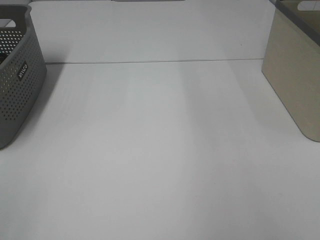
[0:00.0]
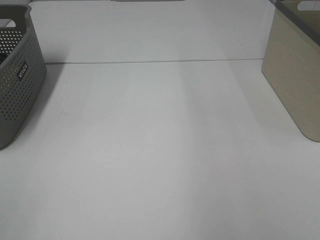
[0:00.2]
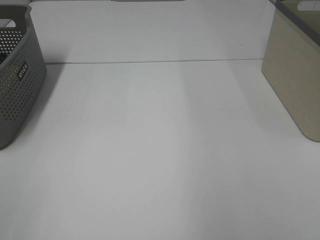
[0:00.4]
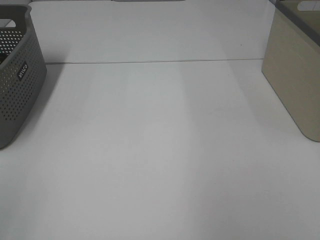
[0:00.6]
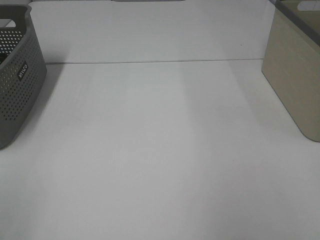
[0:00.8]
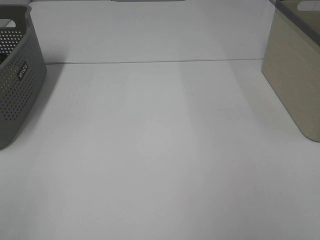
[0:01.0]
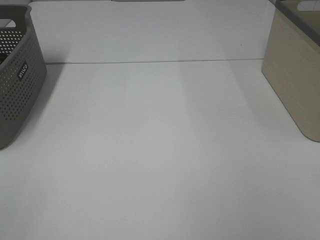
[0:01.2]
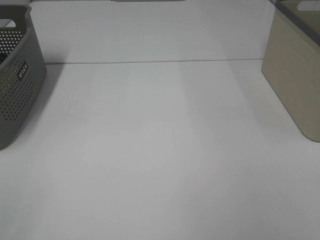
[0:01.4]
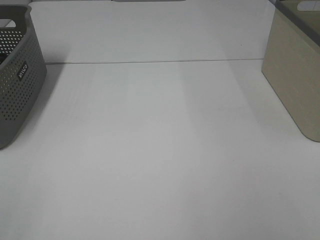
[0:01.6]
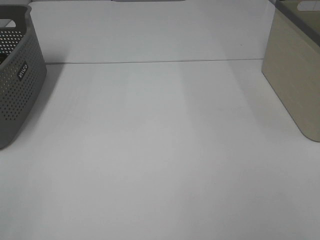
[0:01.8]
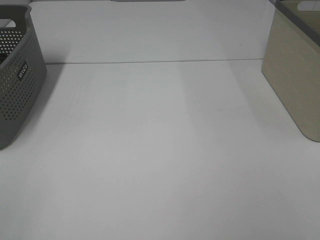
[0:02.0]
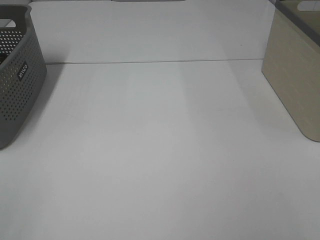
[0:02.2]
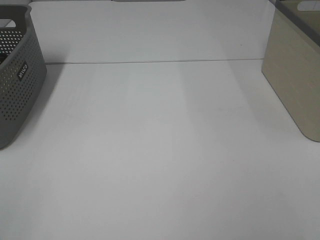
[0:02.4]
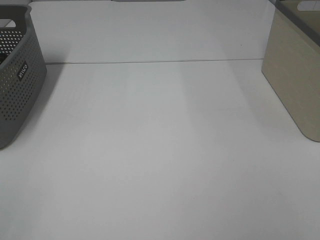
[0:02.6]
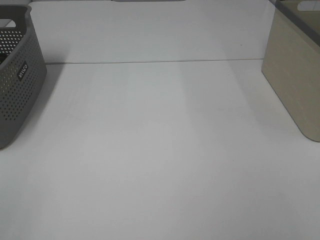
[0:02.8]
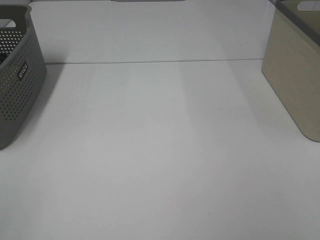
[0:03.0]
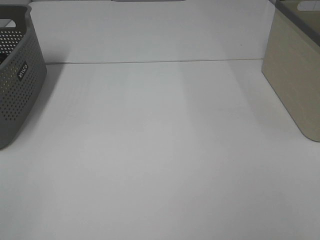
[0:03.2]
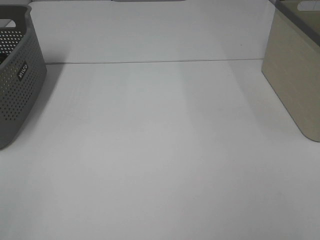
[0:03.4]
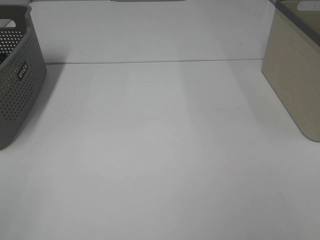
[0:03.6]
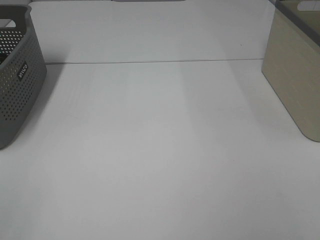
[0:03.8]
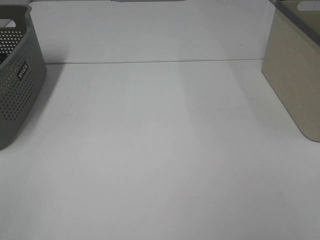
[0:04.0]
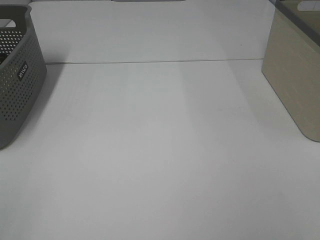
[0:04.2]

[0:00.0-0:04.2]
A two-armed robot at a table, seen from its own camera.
0:02.8 to 0:04.2: Neither gripper changes place.

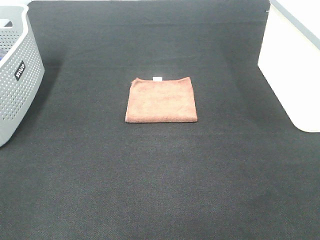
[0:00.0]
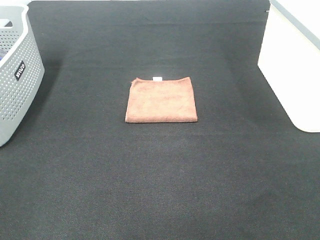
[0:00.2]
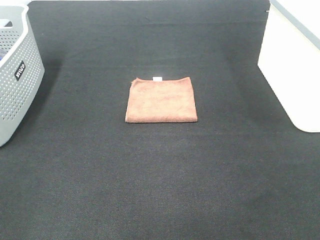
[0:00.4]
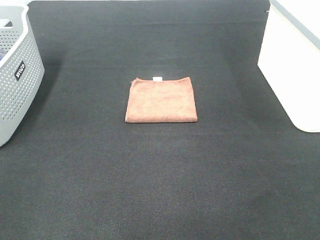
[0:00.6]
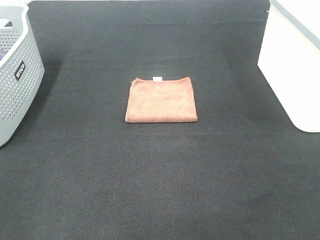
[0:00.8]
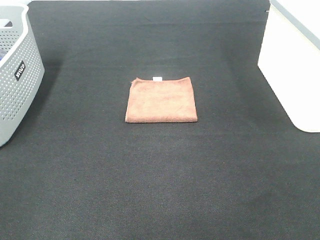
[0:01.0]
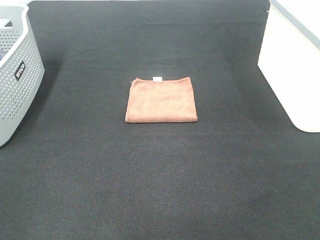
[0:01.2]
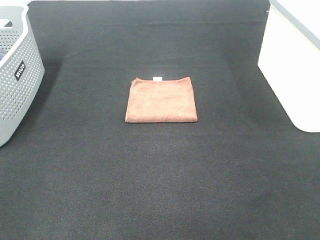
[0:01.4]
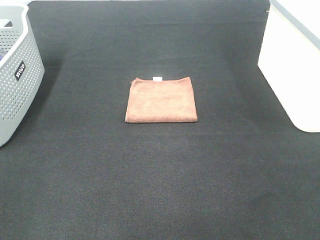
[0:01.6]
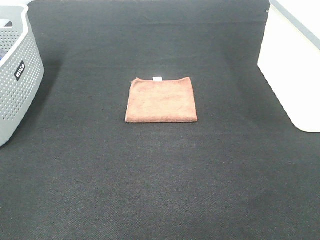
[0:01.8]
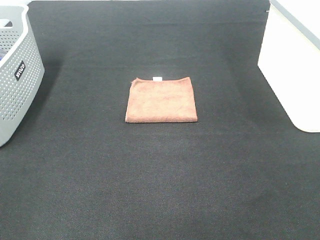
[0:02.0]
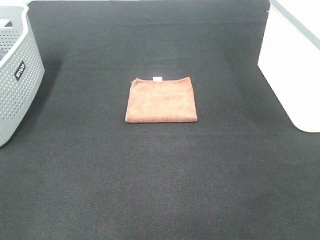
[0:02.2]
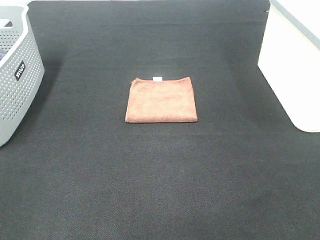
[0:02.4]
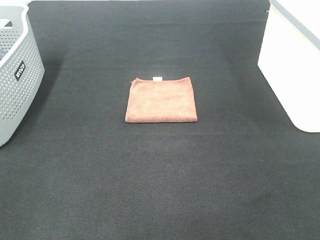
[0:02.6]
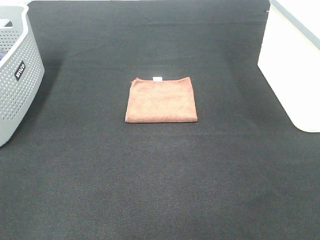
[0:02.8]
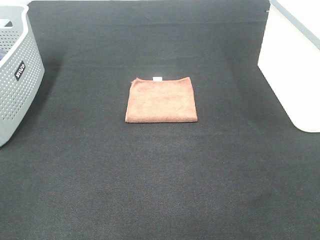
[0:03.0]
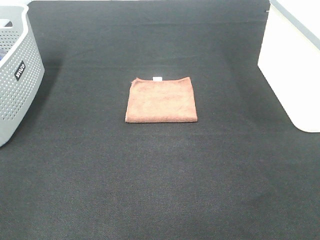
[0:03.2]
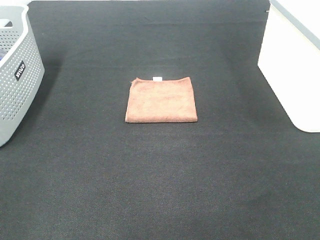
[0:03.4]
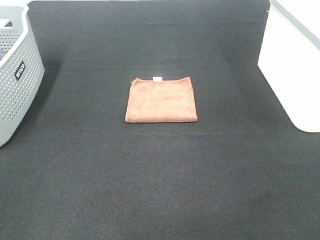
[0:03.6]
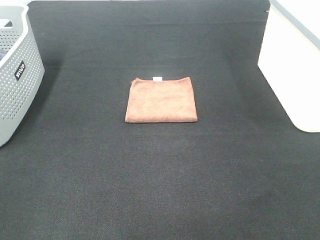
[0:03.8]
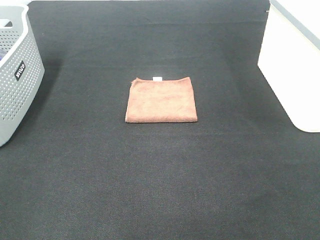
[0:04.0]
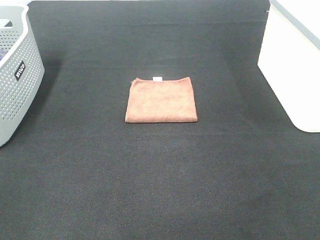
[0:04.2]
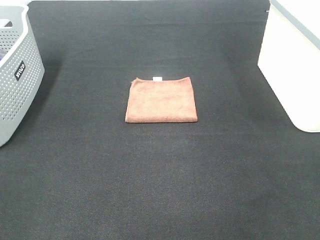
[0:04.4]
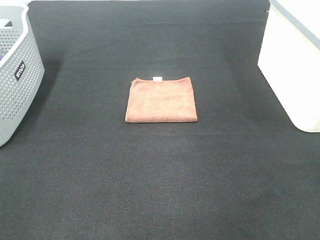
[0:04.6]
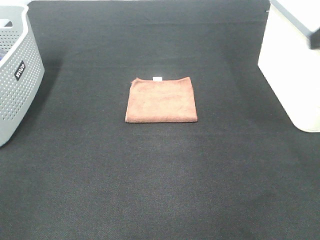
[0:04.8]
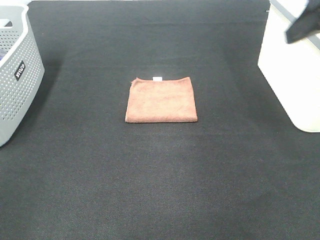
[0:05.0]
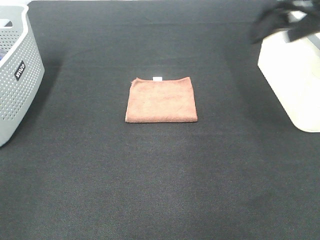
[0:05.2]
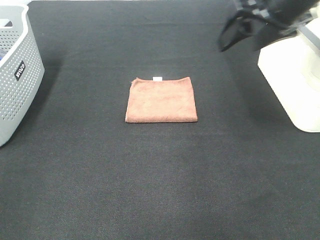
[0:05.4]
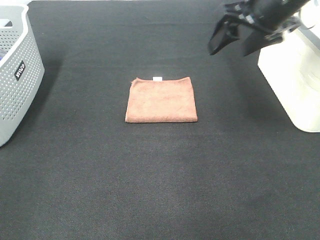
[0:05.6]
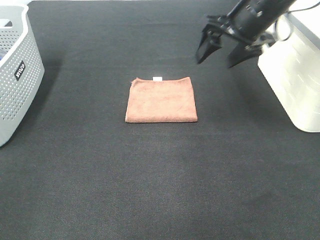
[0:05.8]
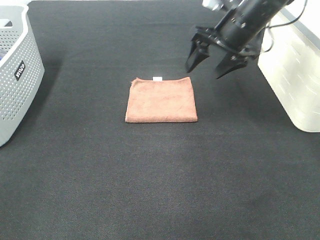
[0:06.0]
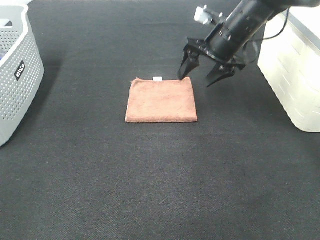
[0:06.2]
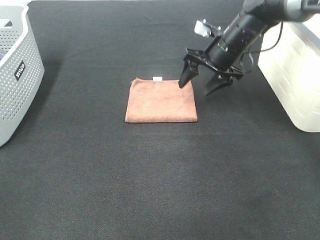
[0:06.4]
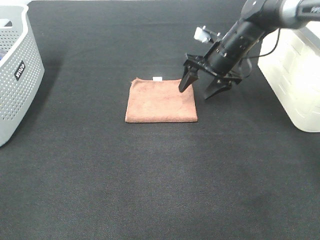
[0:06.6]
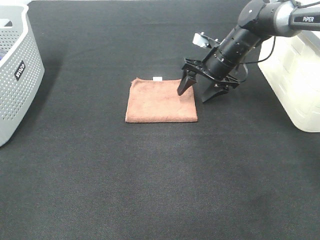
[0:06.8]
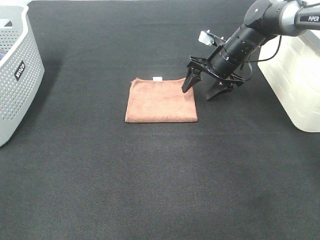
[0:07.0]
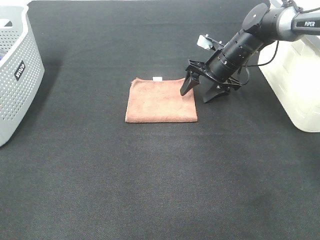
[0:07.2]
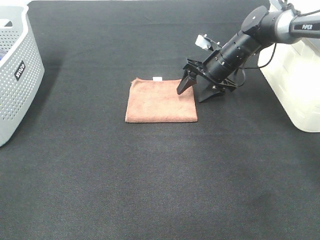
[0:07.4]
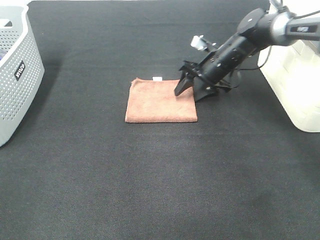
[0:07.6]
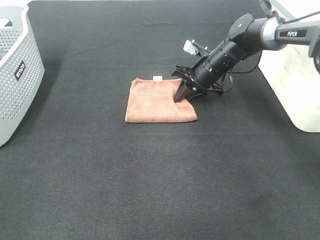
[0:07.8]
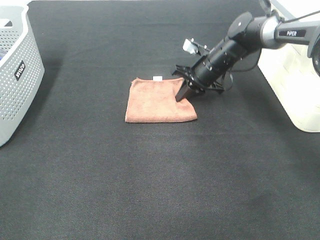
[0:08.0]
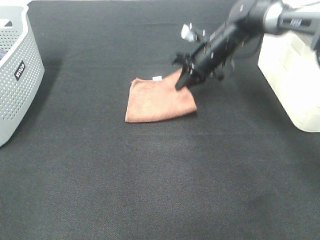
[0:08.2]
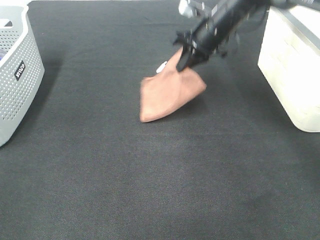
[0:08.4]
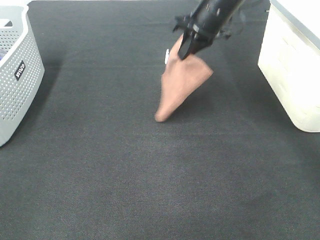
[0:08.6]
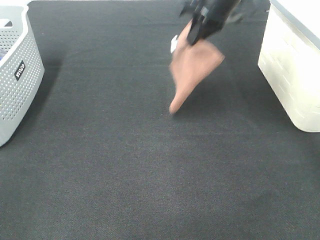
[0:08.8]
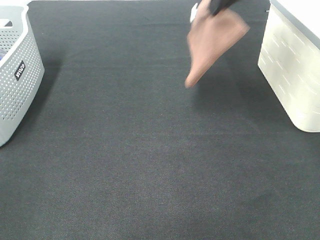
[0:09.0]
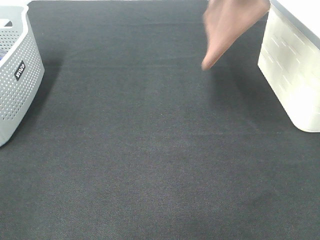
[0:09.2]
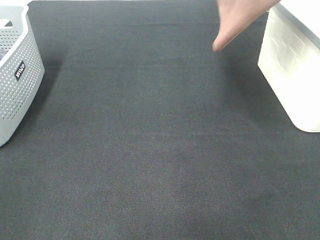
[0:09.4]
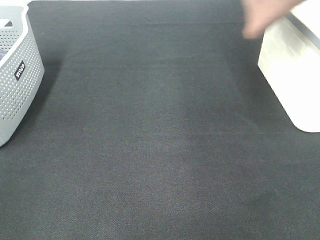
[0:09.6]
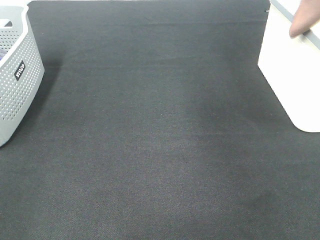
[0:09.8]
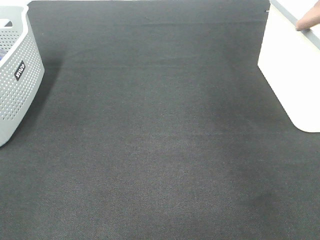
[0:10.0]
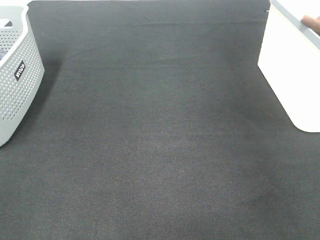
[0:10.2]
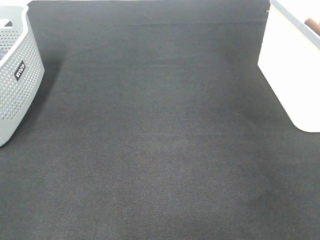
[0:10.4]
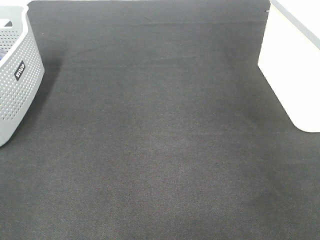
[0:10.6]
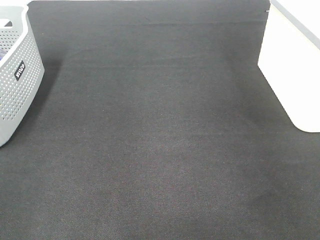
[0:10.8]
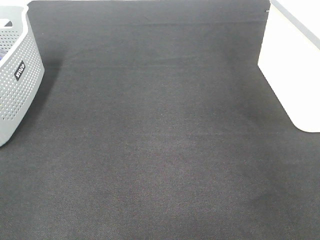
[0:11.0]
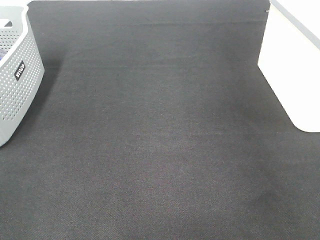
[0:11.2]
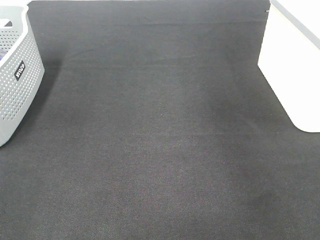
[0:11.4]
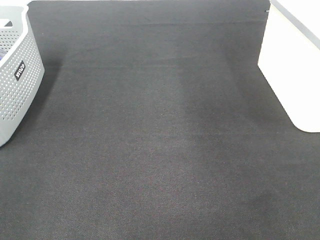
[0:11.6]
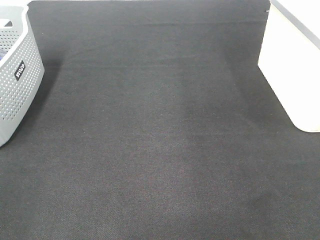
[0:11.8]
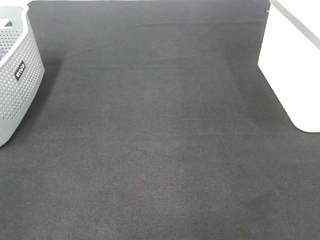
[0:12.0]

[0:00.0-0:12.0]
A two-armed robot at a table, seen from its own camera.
Step, 0:00.0 to 0:08.0: Right hand: grab the folded brown towel.
Step, 0:08.2 to 0:10.6: Right hand: place the brown towel in right basket.
0:00.0 to 0:03.0: The two grippers keep their place.
0:04.4 to 0:06.0: The right gripper moves forward, about 35 cm.
0:06.0 to 0:07.6: The right gripper goes roughly 15 cm downward and forward.
0:07.6 to 0:09.0: The right gripper moves upward, some 25 cm, and closes its fingers.
0:09.0 to 0:10.4: The right gripper goes some 25 cm to the right.

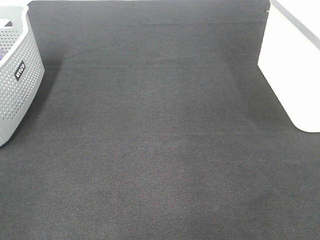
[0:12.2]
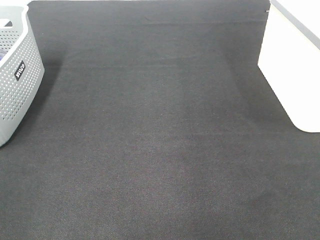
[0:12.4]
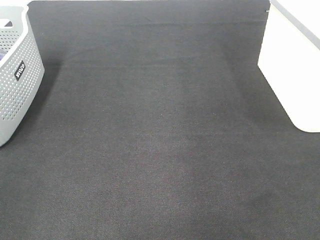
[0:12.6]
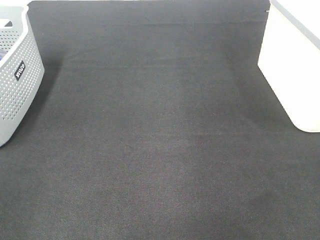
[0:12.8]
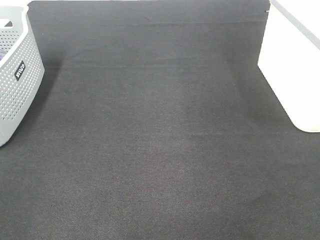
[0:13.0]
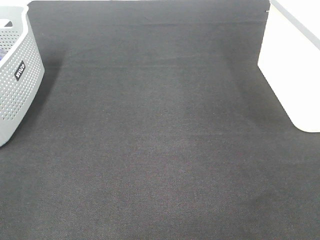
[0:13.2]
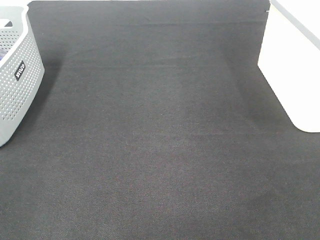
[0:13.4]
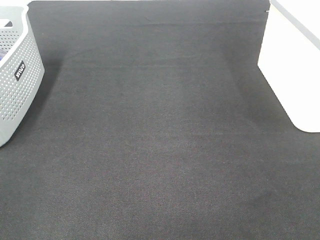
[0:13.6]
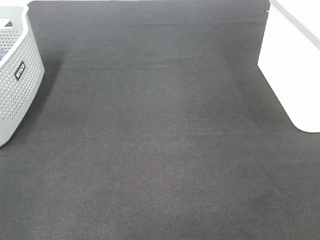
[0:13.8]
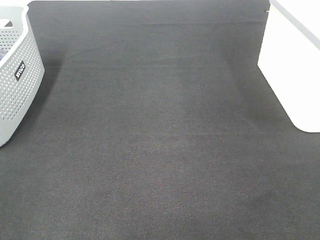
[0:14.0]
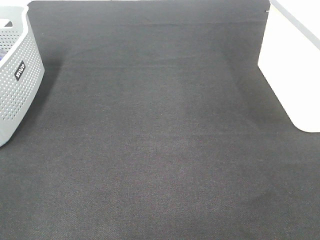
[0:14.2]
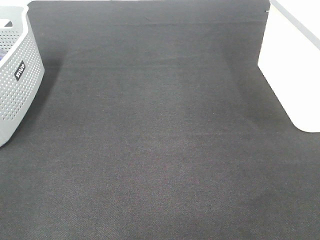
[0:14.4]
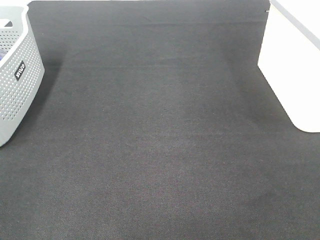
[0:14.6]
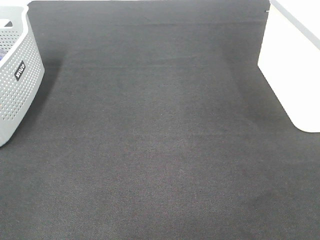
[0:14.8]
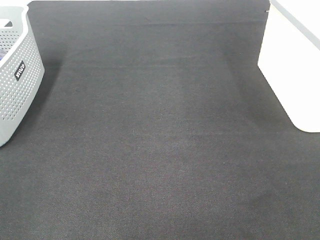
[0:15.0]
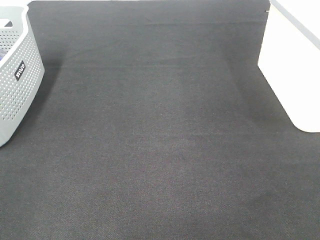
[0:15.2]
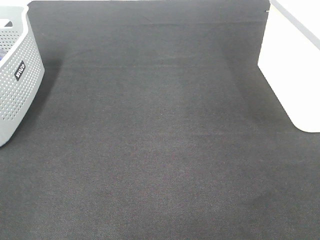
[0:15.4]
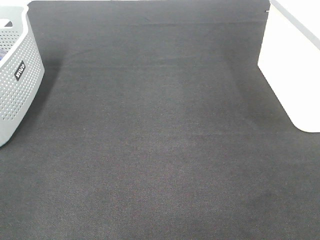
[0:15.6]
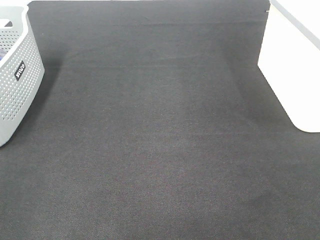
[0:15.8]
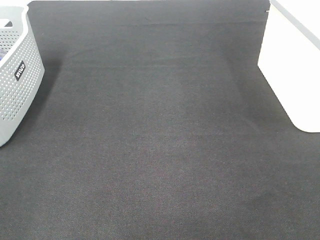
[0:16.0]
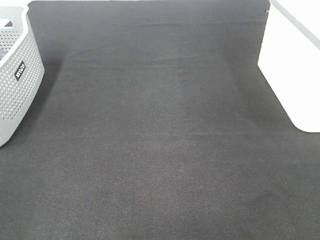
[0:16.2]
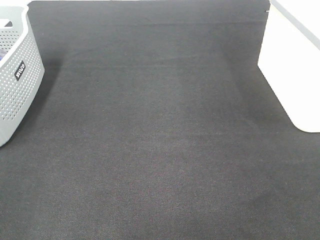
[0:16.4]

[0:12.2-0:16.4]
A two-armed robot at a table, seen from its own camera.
0:13.6 to 0:15.0: The two grippers keep their place.
0:15.0 to 0:16.4: The two grippers keep their place.

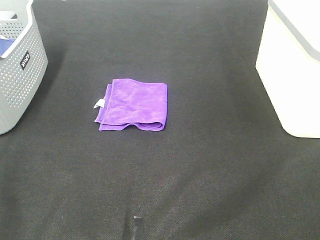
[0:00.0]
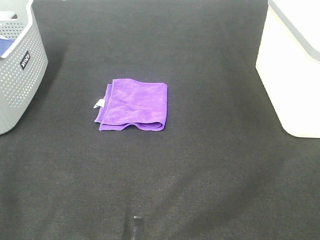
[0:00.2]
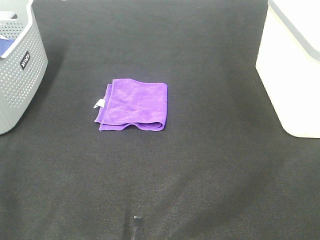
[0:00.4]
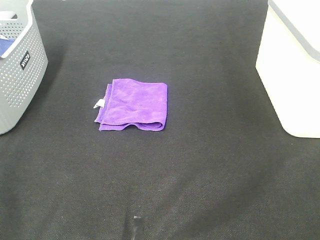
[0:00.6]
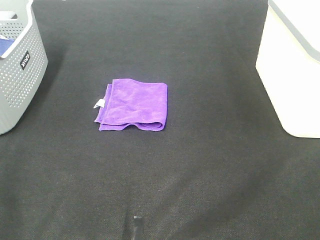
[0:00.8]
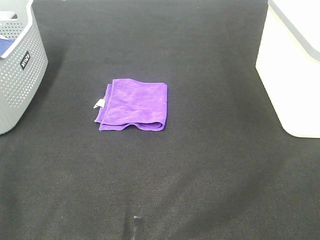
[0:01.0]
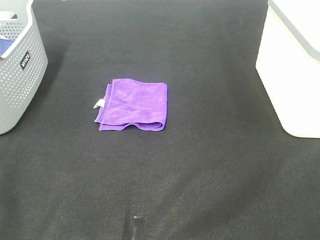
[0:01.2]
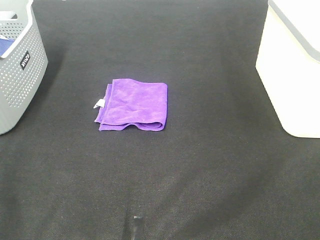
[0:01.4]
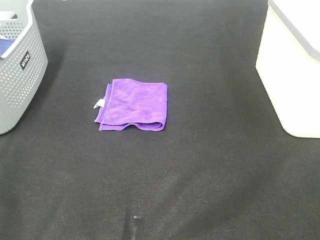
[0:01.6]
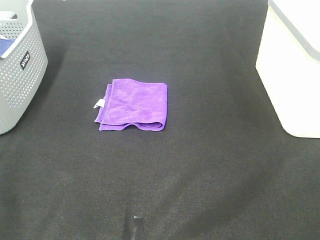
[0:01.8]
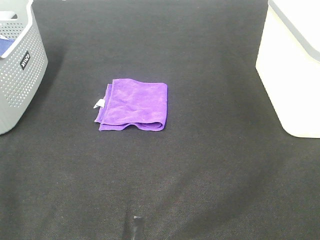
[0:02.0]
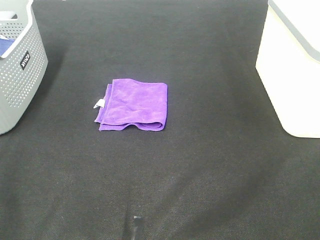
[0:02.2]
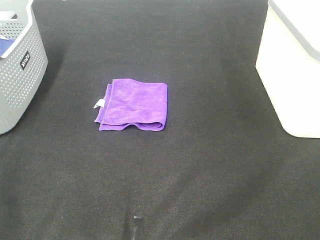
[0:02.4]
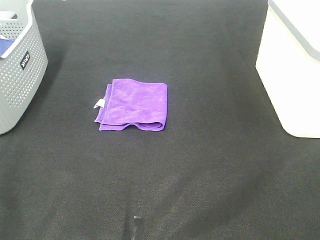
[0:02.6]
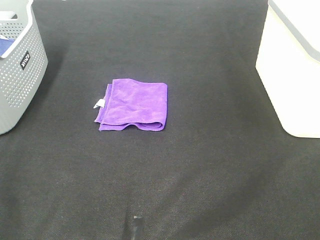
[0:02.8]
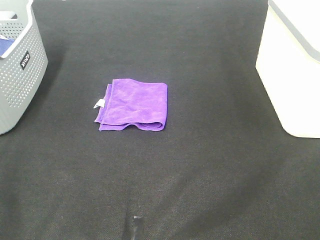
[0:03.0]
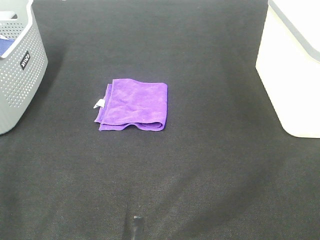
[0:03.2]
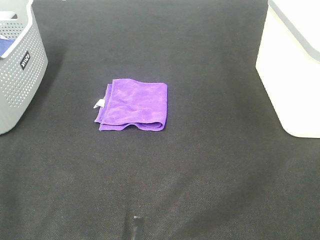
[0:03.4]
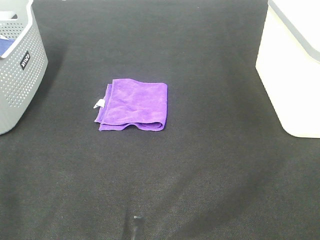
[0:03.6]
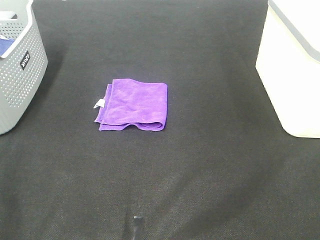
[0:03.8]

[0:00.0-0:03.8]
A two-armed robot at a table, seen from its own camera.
0:00.0 to 0:02.6: Both grippers stay put.
